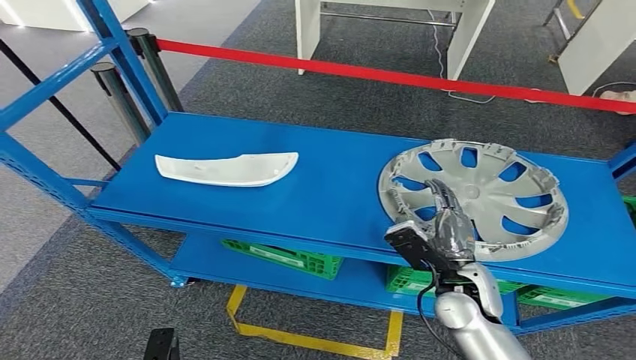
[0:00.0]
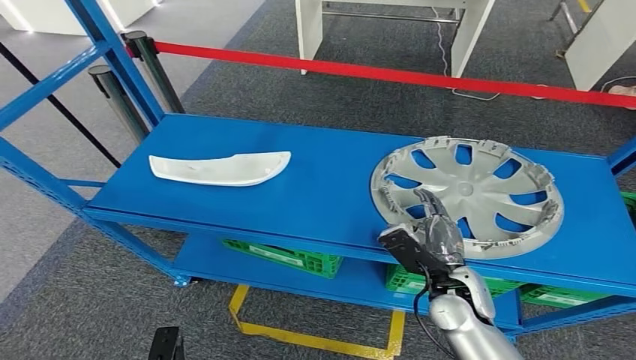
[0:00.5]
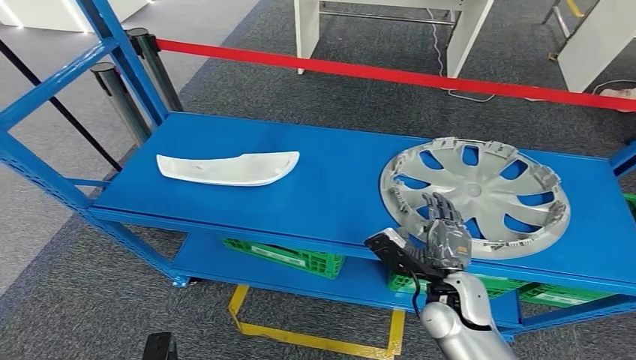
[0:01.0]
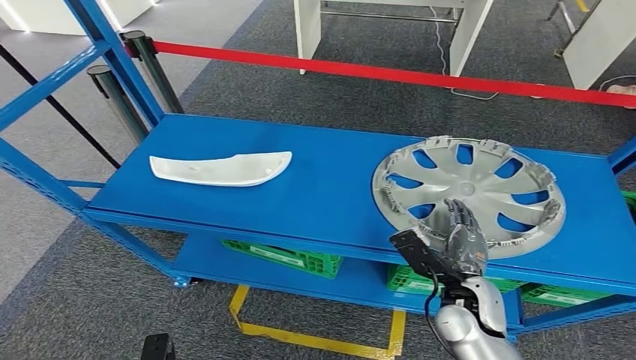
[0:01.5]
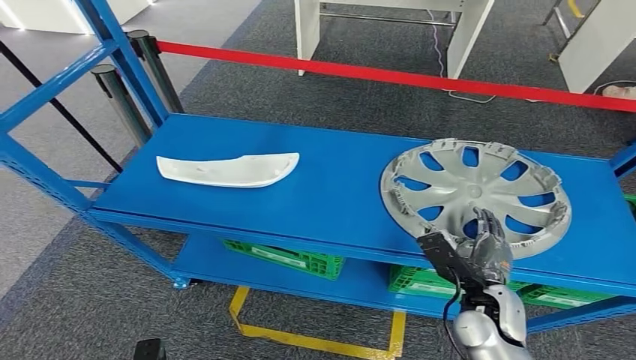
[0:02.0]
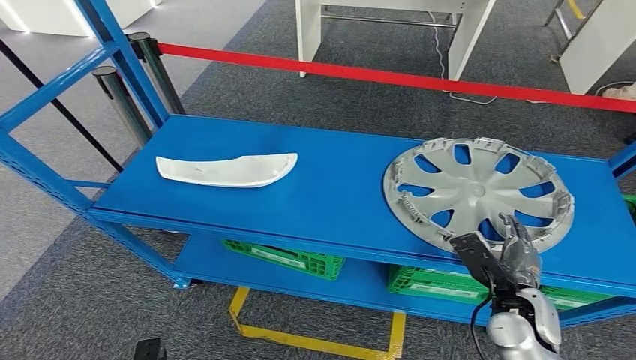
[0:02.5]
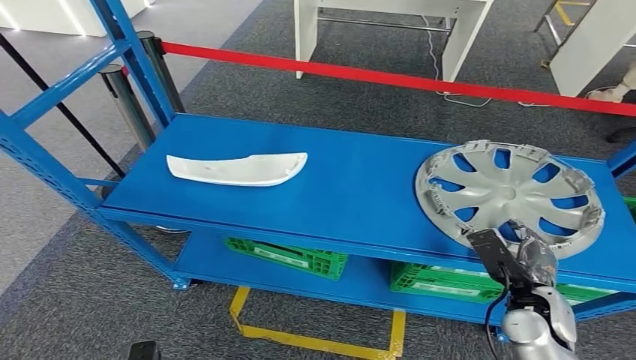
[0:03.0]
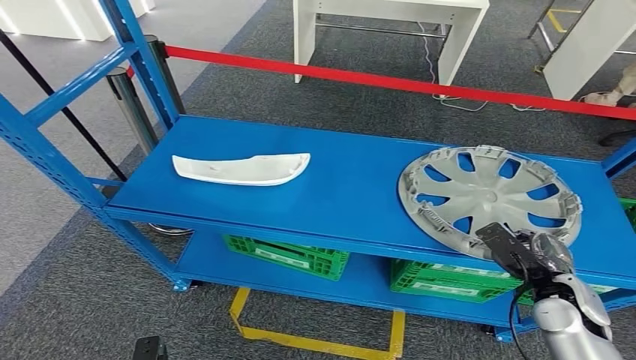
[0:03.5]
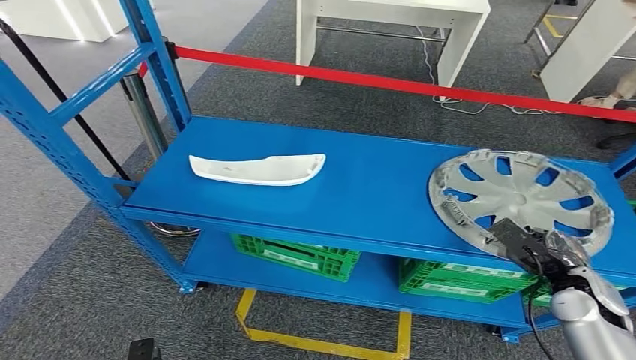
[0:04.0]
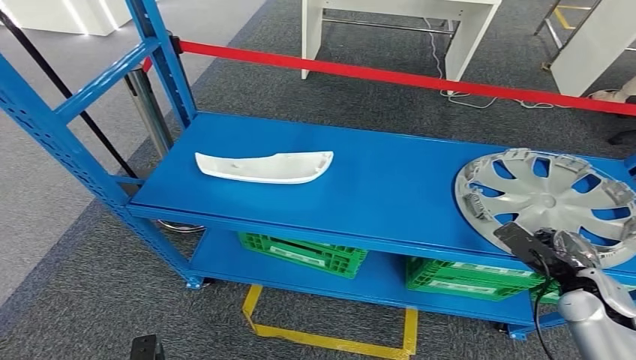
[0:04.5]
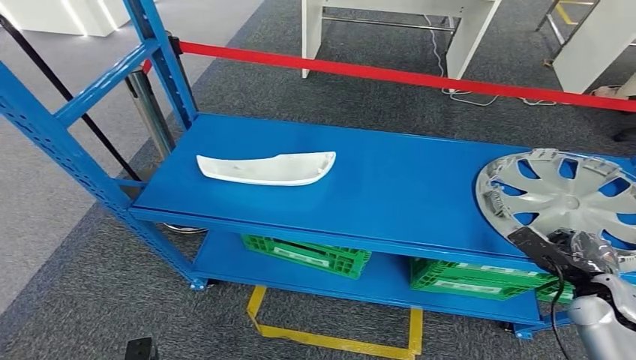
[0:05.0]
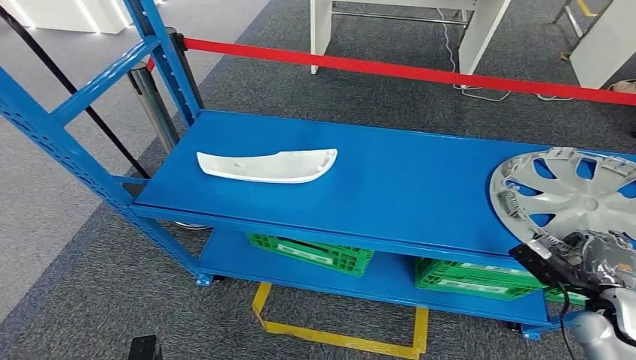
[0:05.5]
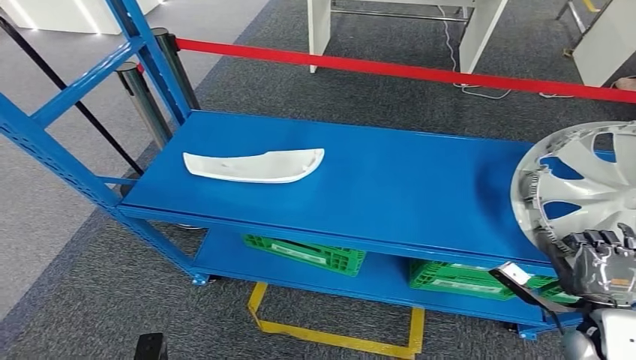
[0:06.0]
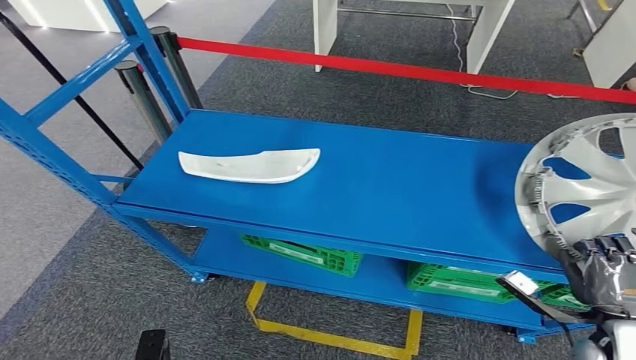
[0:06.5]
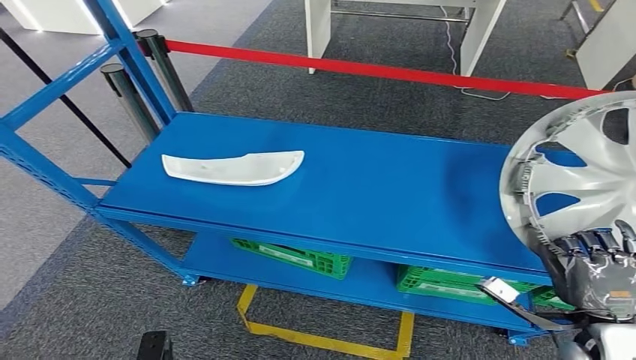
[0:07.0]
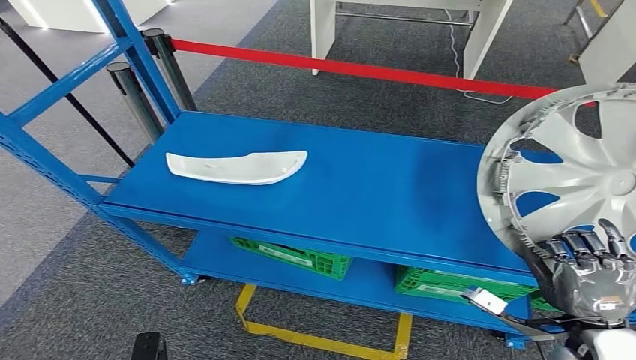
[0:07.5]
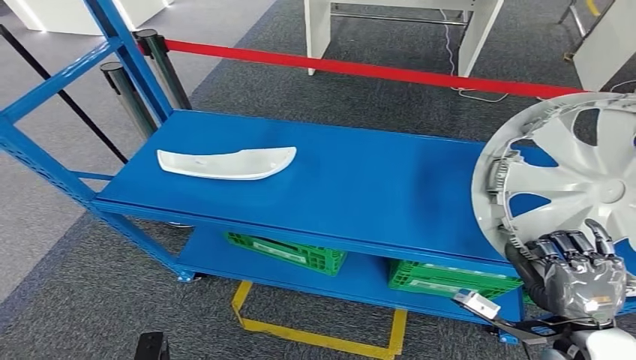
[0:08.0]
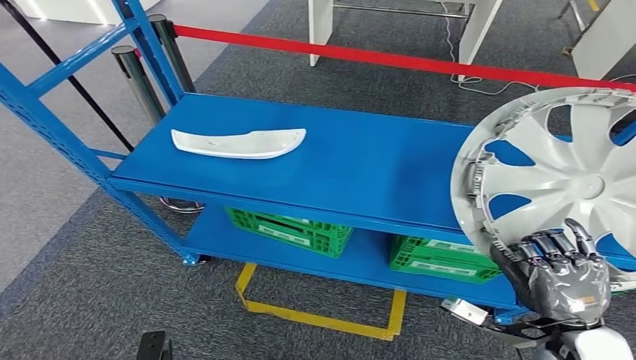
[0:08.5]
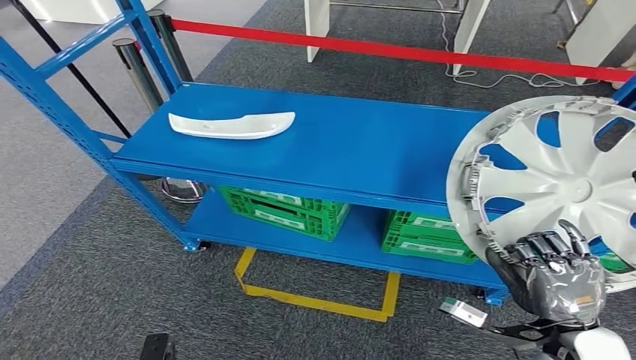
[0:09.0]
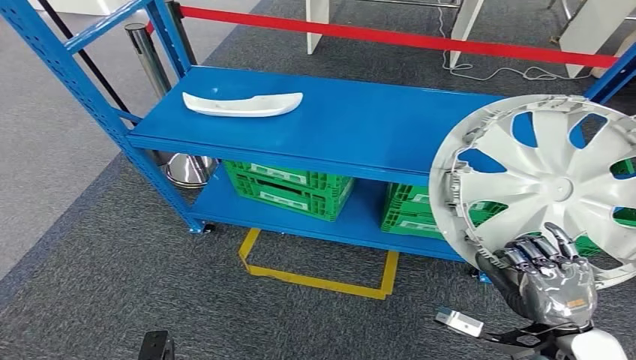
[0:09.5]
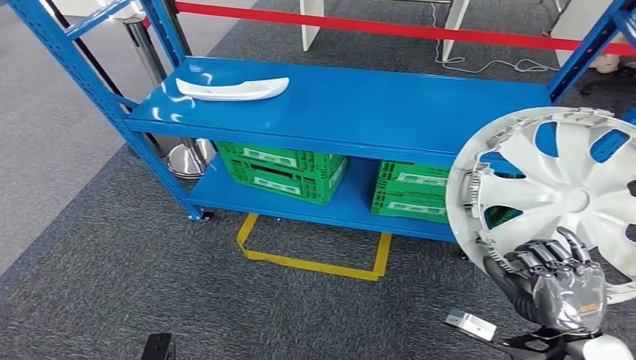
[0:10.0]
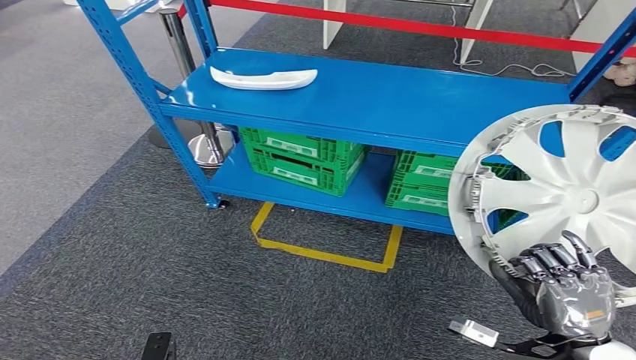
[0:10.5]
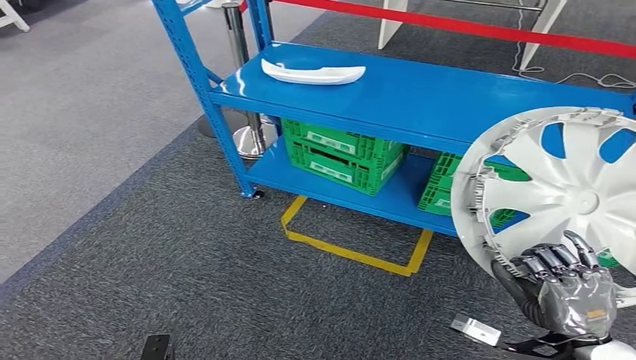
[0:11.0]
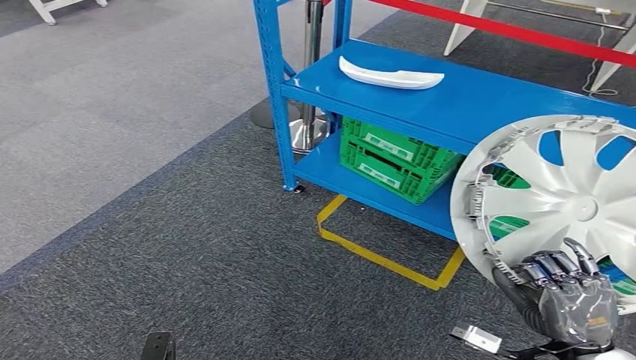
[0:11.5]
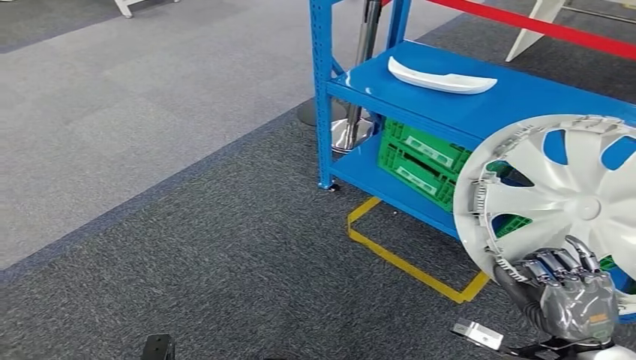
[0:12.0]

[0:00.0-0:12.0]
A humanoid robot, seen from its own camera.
Step, 0:00.0 to 0:10.5: Pick up the small component from the shelf.
0:00.0 to 0:02.0: The right hand shifts by some 5 cm.

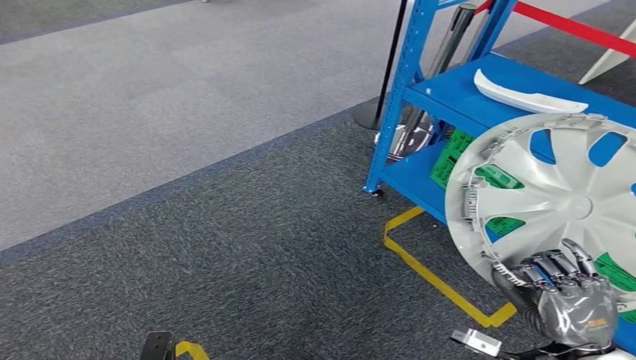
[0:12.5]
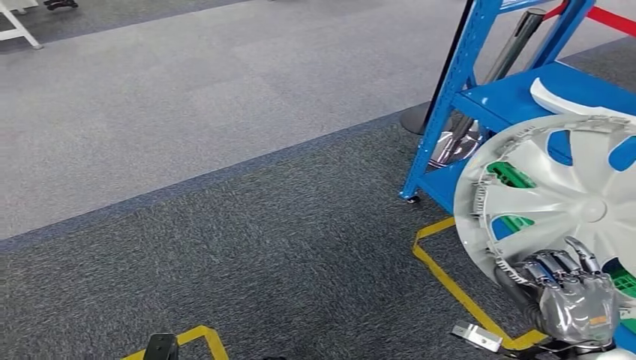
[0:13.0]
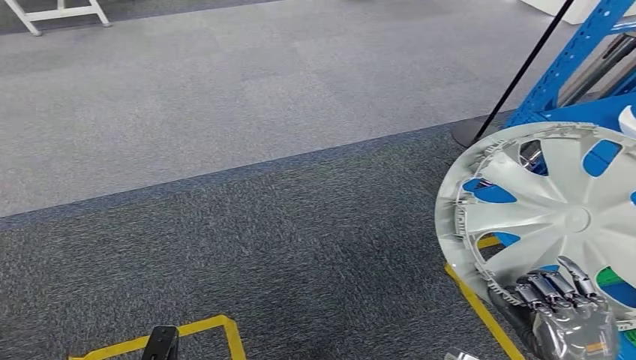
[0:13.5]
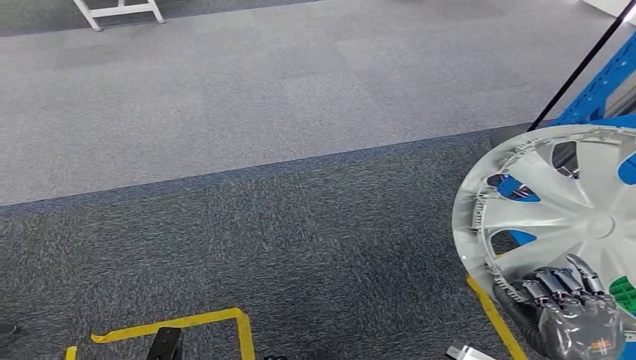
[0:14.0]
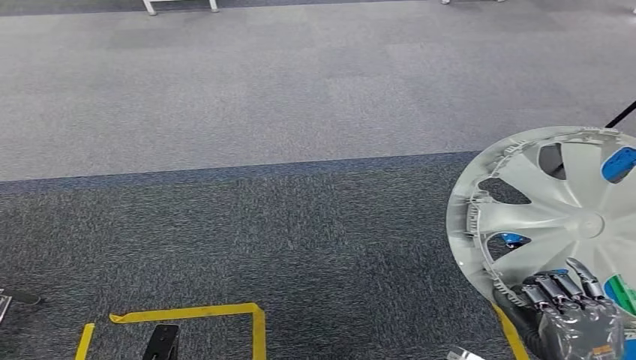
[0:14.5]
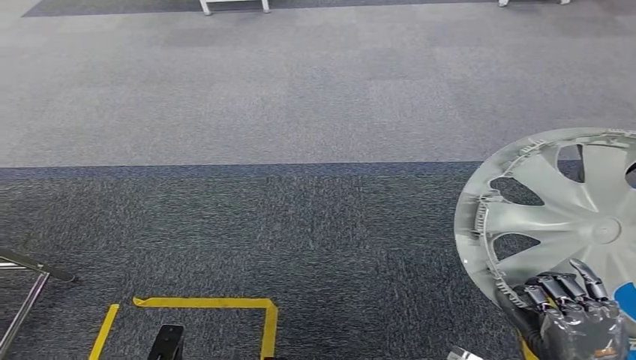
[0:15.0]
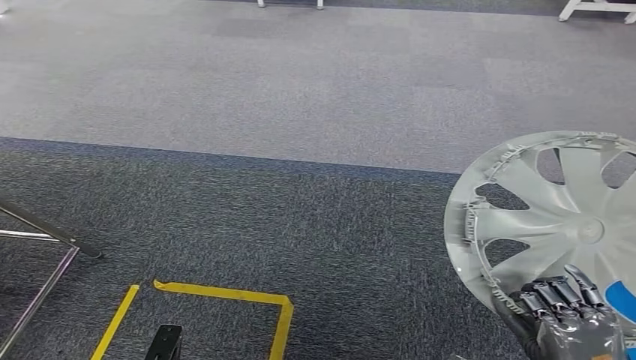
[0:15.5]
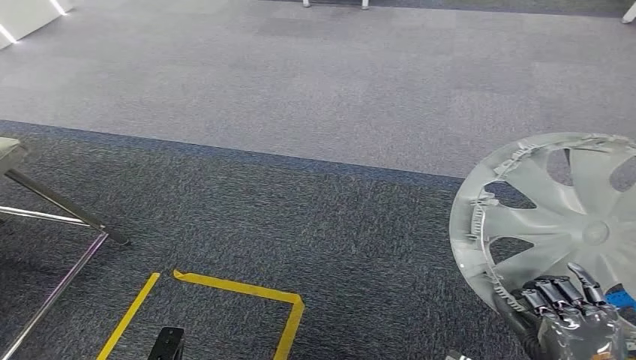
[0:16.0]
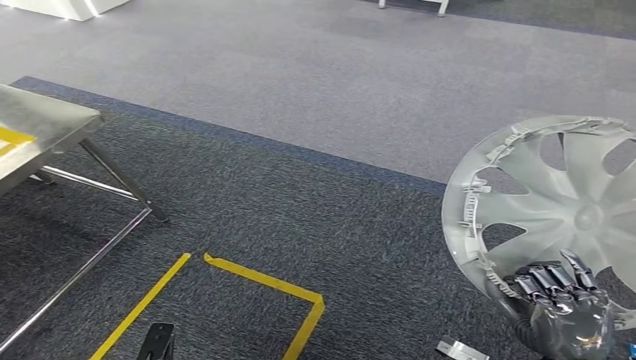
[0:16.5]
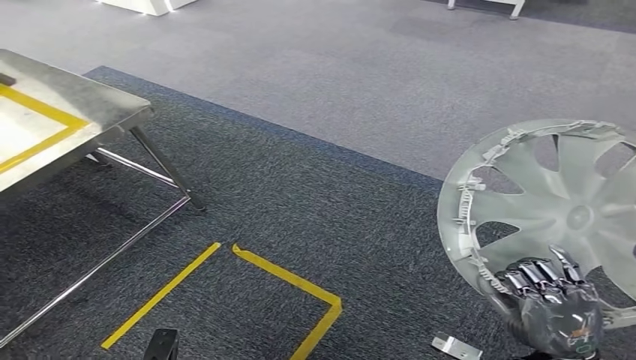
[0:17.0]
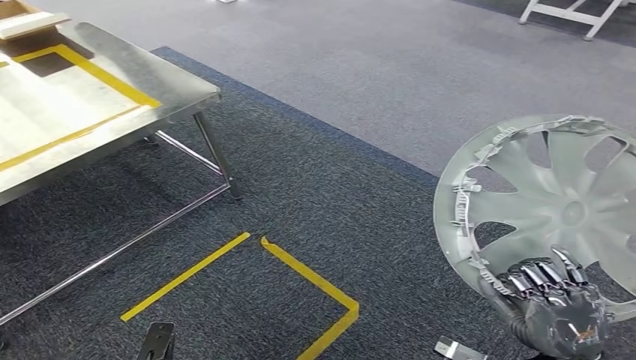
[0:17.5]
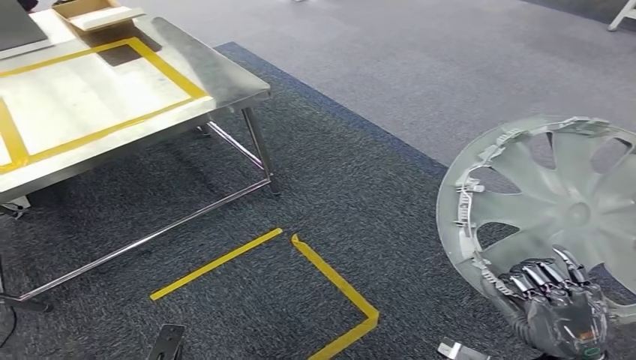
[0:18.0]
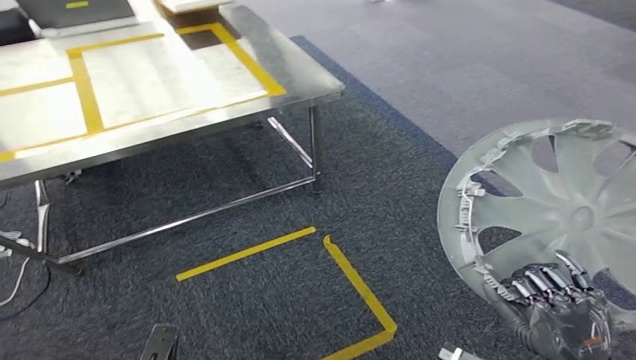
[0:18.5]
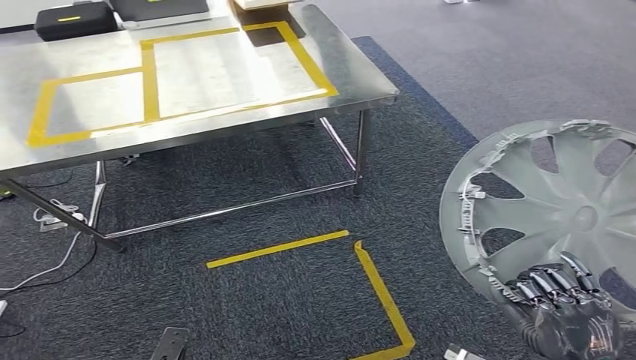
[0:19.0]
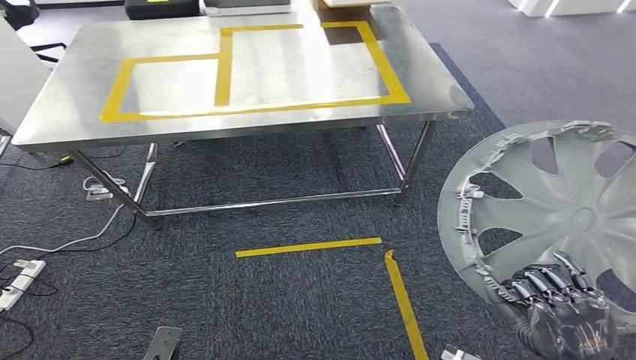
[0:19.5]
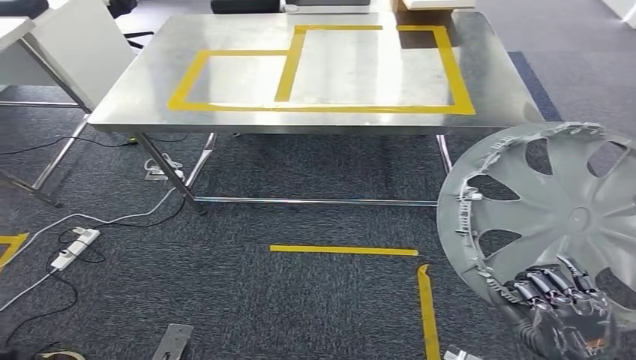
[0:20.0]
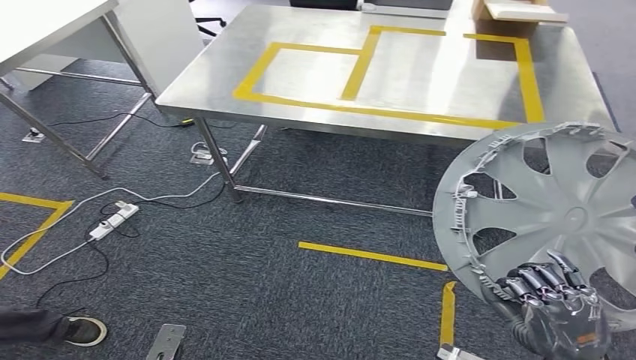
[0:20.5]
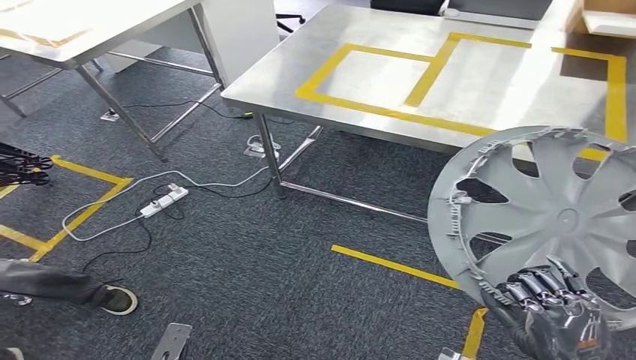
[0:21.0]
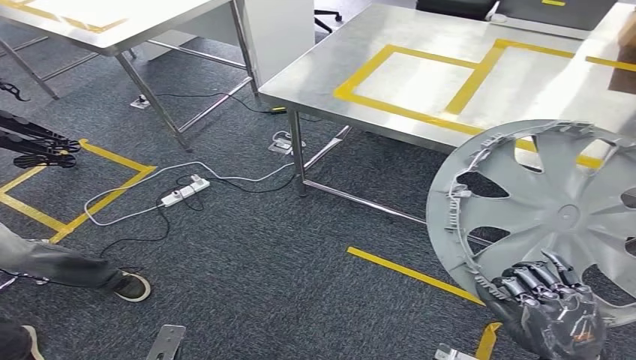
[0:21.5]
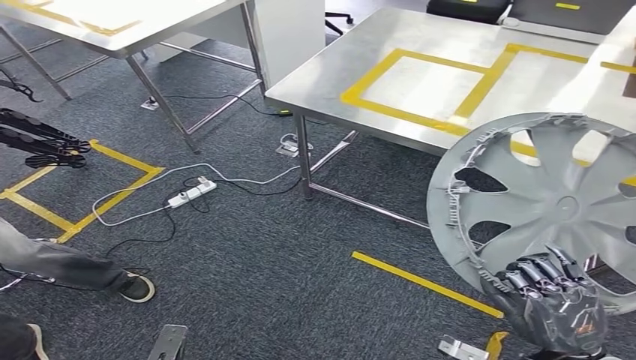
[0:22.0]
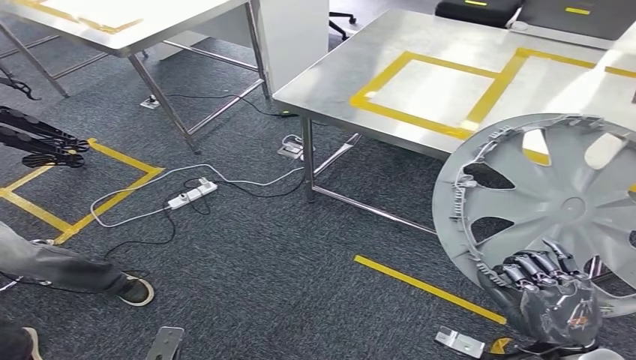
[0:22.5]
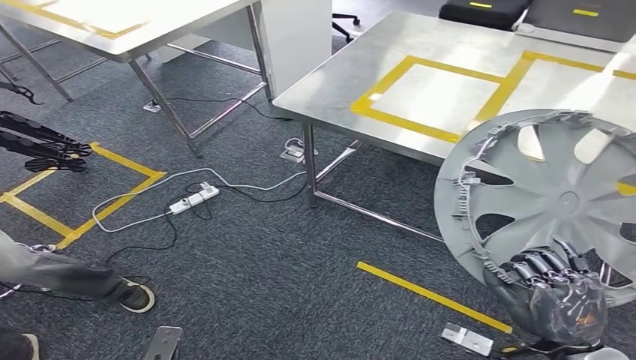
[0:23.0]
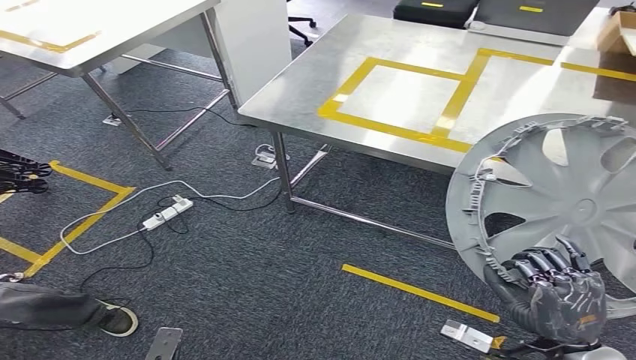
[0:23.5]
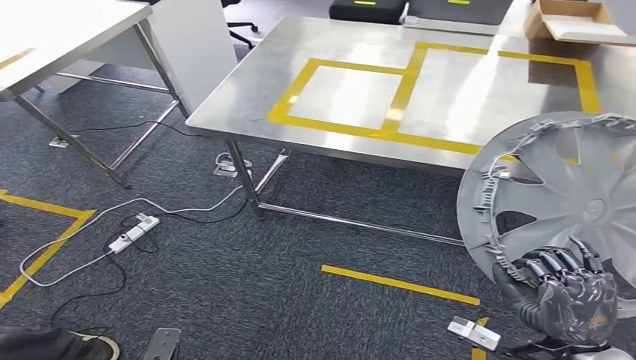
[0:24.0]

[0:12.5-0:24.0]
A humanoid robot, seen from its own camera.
Step, 0:12.5 to 0:21.5: Move the small component to the workbench.
